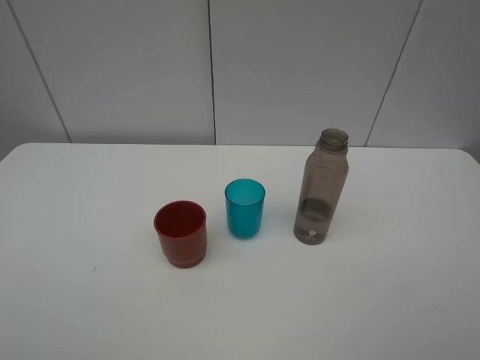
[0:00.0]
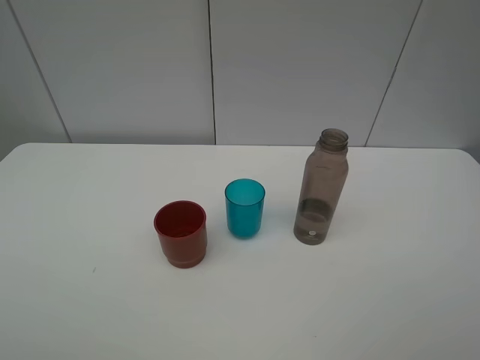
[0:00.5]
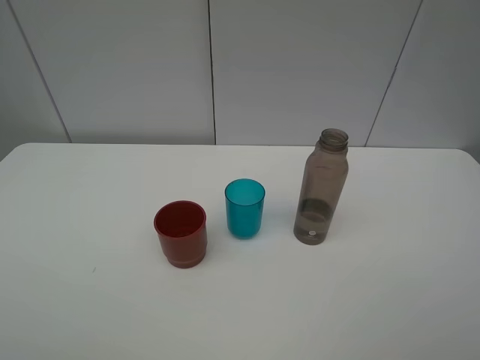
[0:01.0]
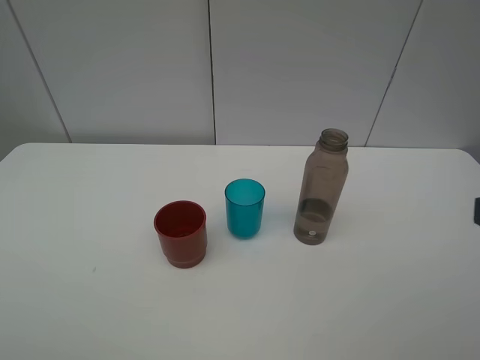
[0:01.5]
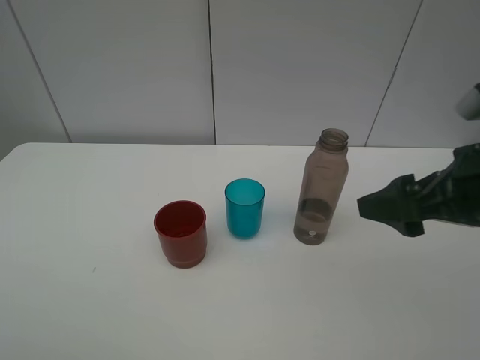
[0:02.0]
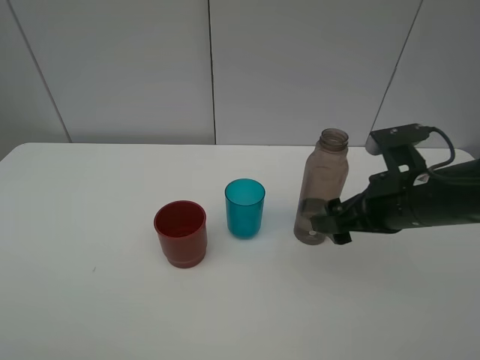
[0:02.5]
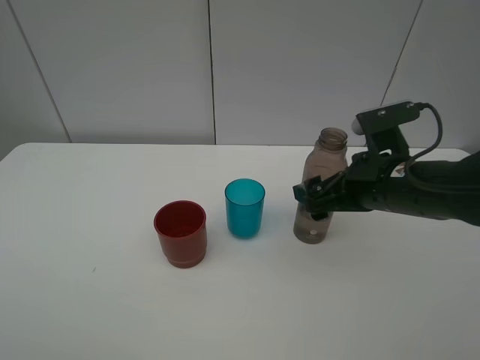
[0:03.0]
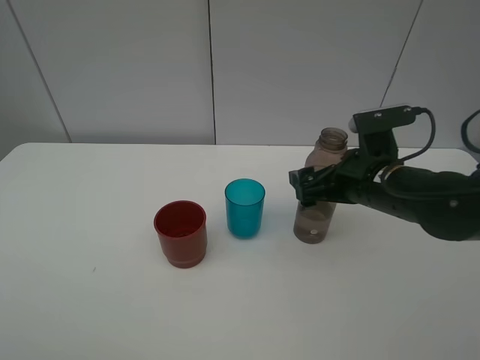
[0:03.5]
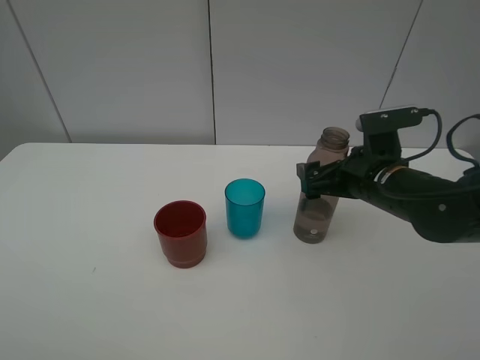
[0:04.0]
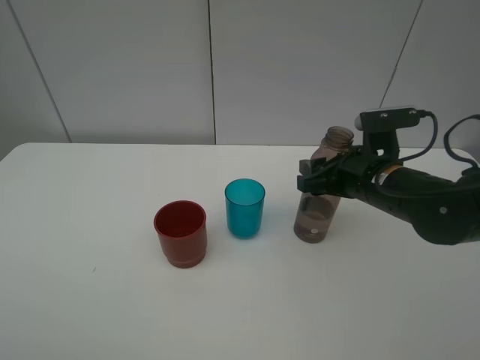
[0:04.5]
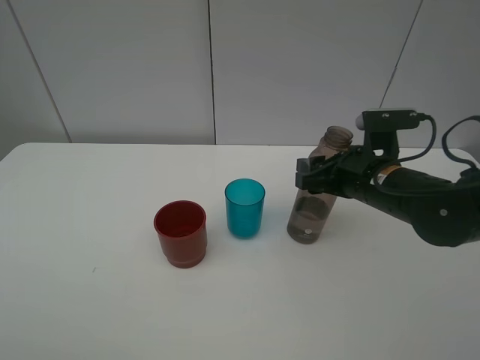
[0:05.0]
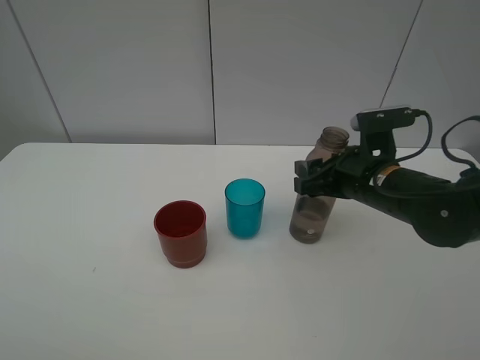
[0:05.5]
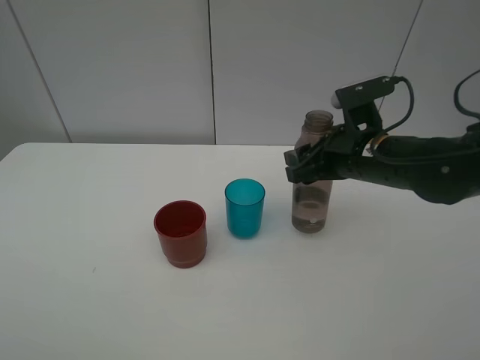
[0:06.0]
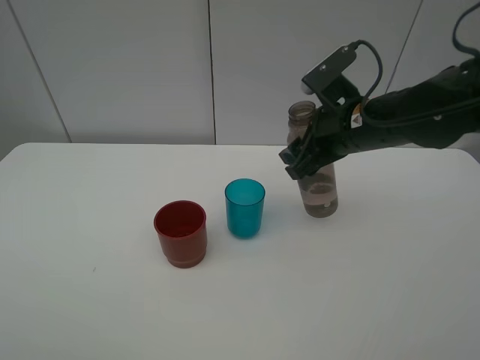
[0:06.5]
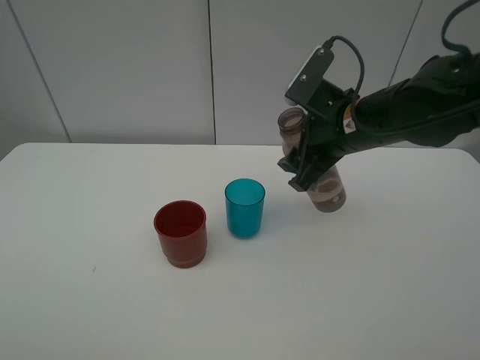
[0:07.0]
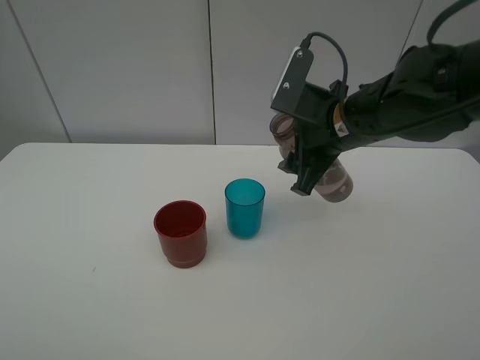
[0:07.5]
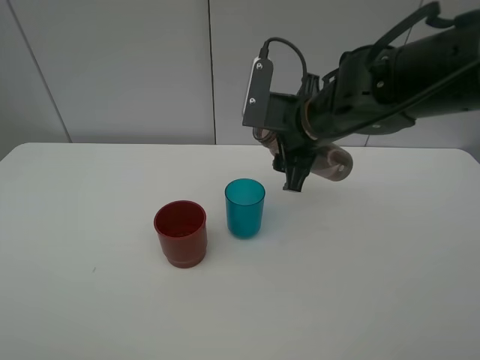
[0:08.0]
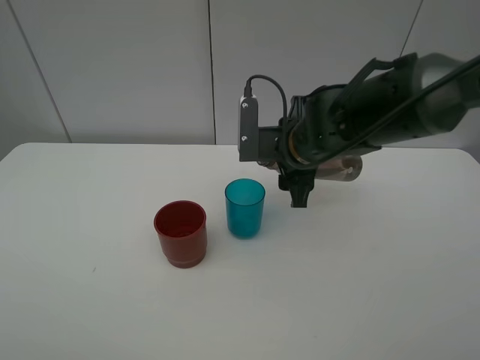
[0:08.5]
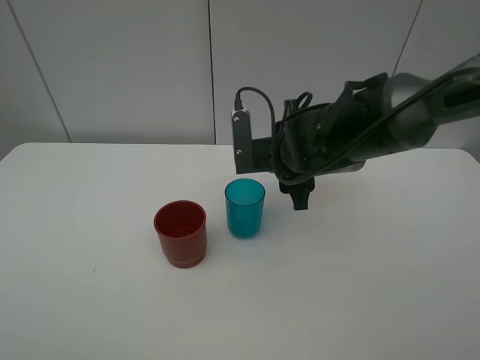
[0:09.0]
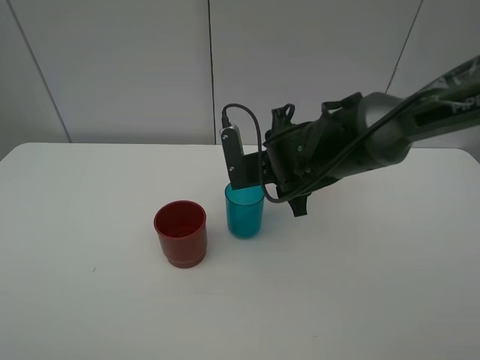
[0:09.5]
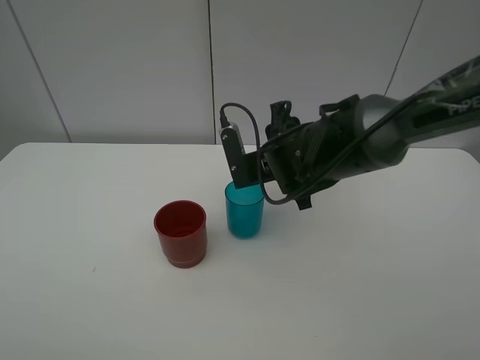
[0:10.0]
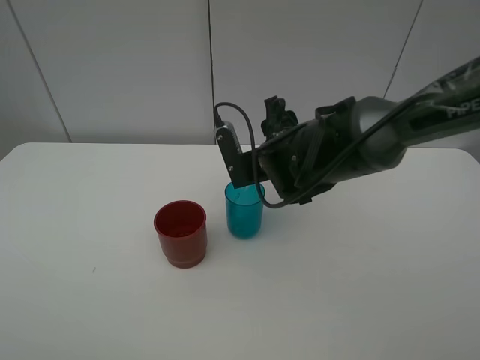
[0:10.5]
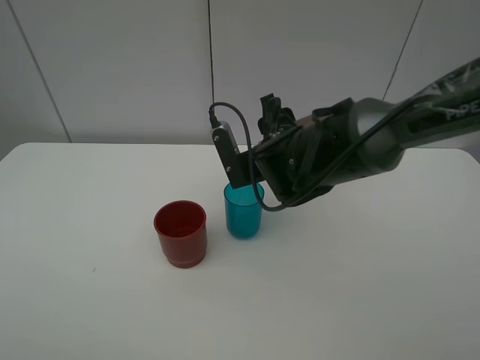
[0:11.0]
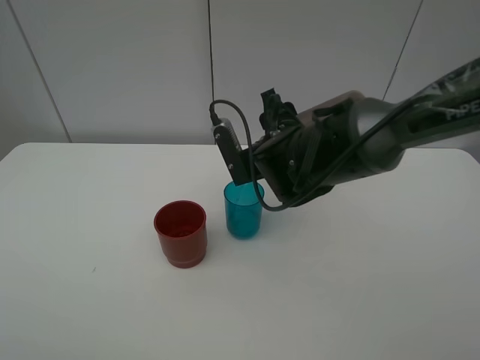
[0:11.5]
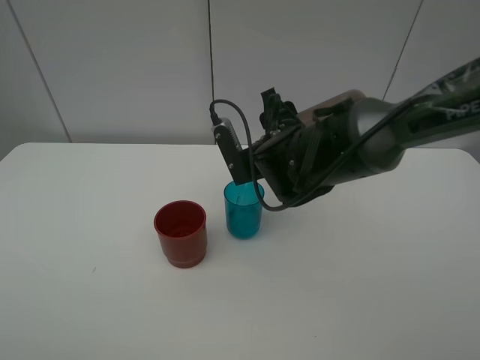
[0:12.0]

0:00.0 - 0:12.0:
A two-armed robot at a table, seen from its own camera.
Task of the whole recording: pick up the bottle and pour water into the cup, then pick up the cup containing water and pour it into another cup.
Step, 0:00.0 - 0:04.5: Grasp the brown bottle with the right gripper.
0:00.0 - 0:02.0: The right gripper moves forward and to the left, about 20 cm.
0:02.0 - 0:04.0: The right gripper goes approximately 15 cm forward, downward and to the left.
0:04.0 - 0:06.0: The right gripper closes up.
0:06.0 - 0:08.0: The right gripper shifts some 5 cm to the left.
0:08.0 - 0:10.0: The right gripper shifts about 5 cm downward.
0:10.0 - 0:12.0: The grippers make only small movements.

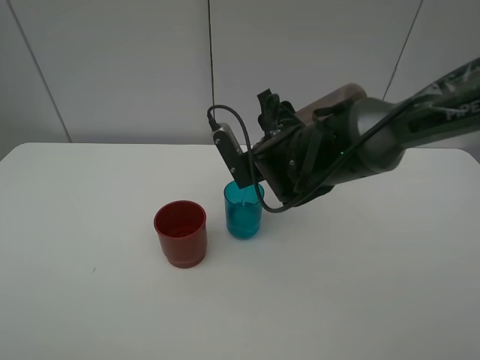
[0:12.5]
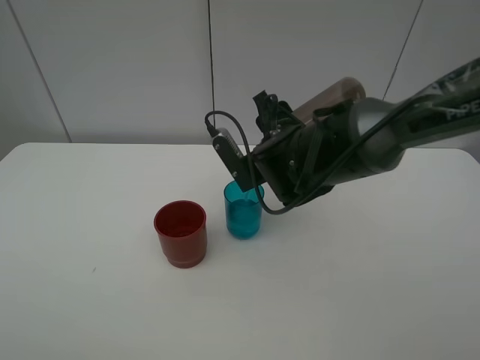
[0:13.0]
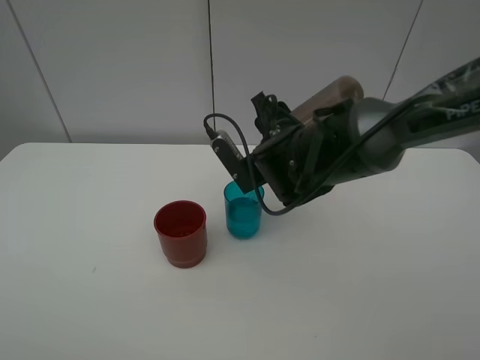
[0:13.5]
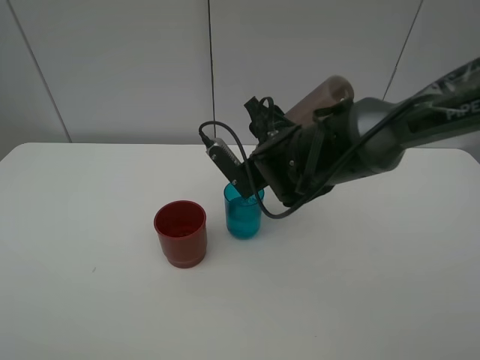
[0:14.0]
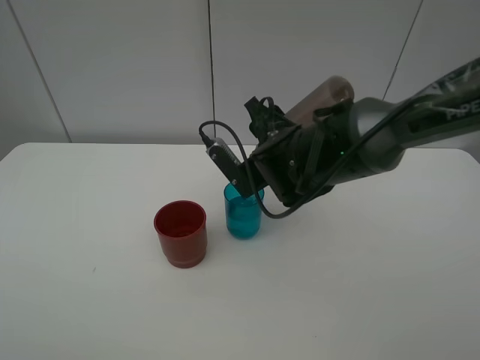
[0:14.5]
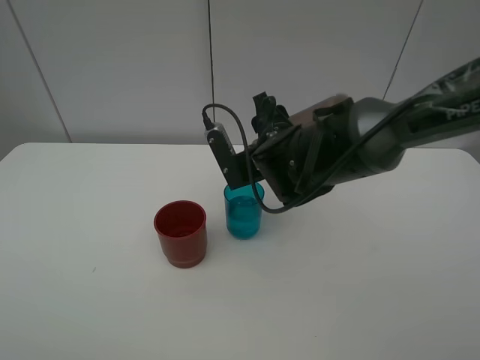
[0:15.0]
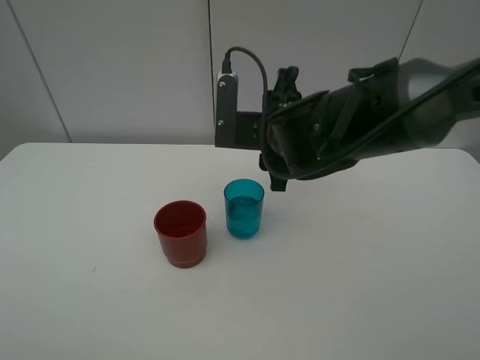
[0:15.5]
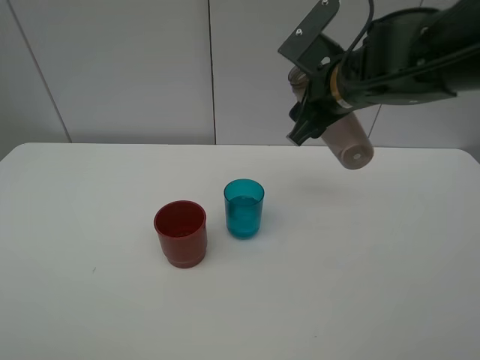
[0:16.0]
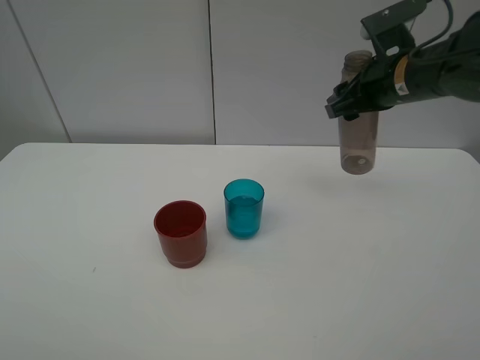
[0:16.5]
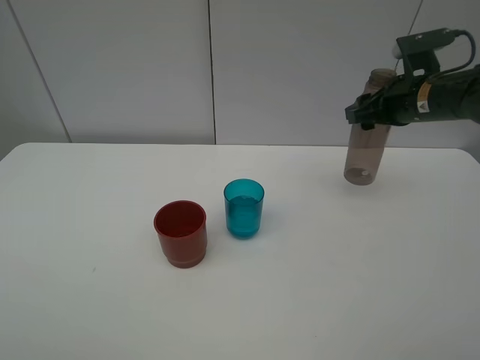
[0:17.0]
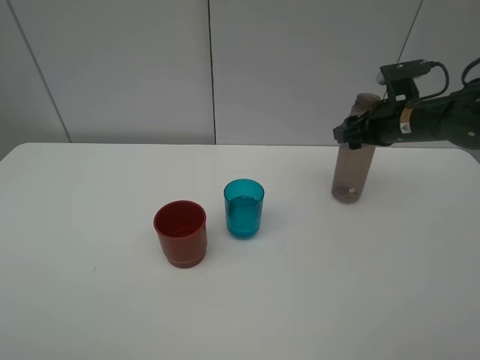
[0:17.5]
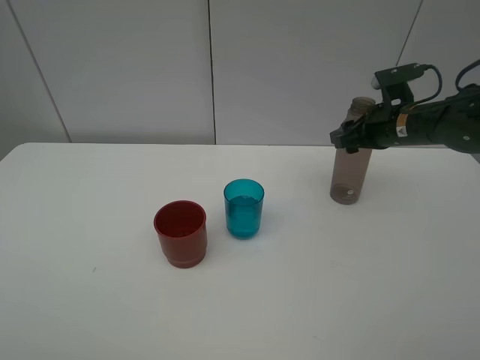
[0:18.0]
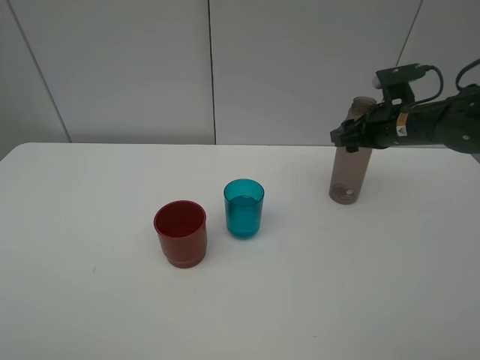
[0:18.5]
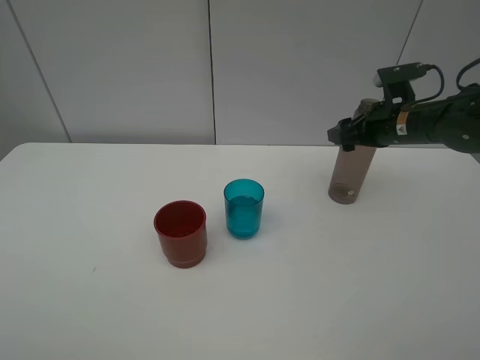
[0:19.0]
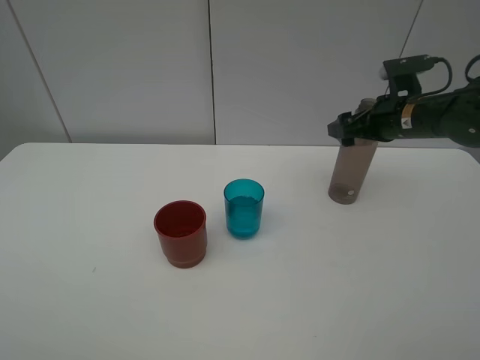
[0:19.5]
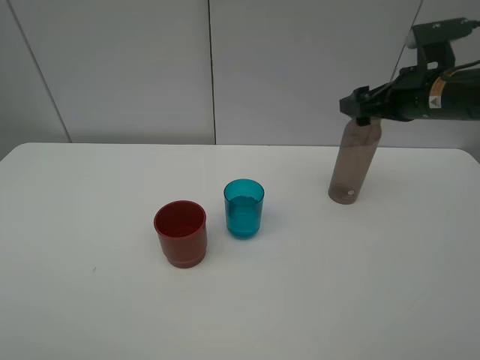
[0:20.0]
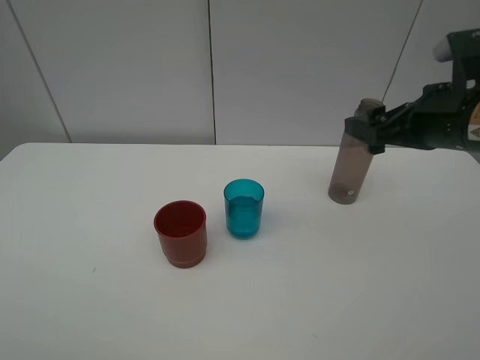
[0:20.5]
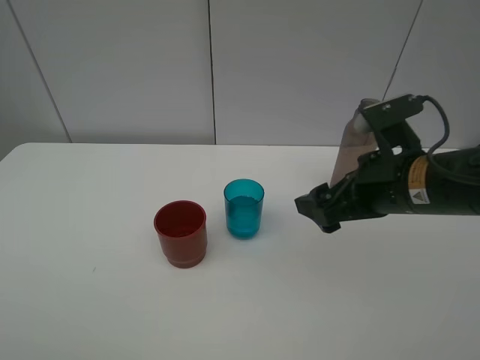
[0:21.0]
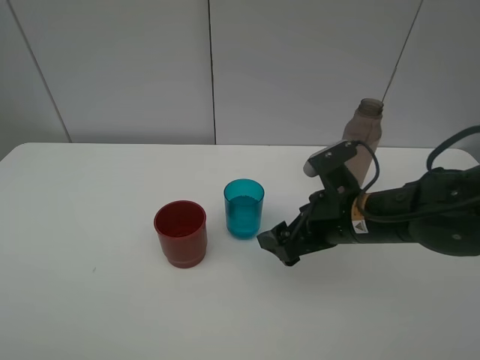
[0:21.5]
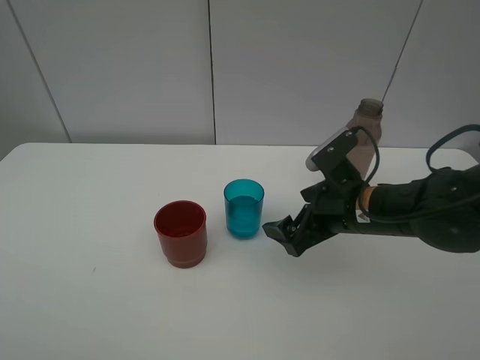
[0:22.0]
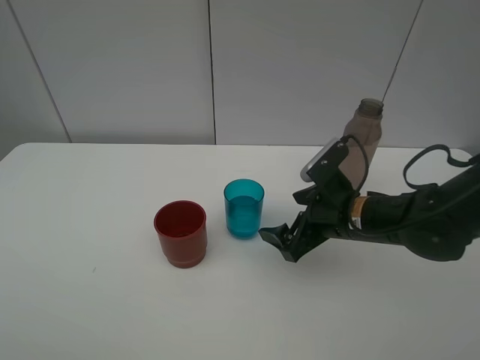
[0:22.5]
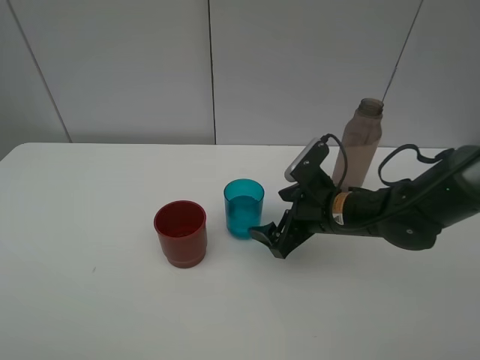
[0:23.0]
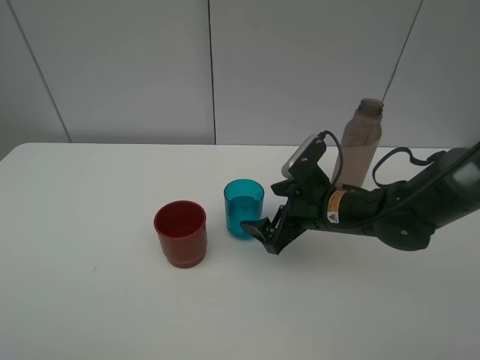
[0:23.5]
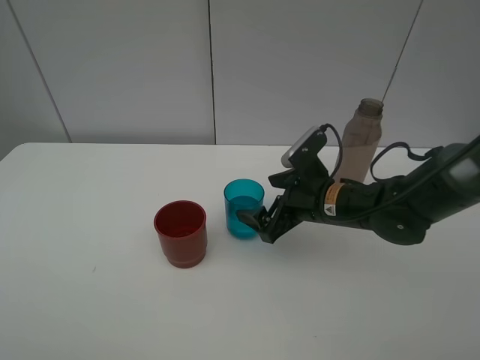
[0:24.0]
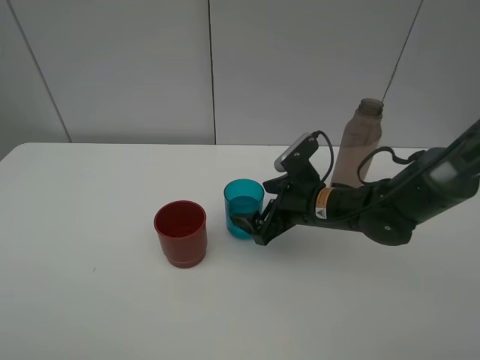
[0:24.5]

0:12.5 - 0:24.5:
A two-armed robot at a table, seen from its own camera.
Task of the whole recording: pick up the bottle and pour water into the cup, then pick up the cup containing water and pour it into another cup.
Step, 0:12.5 - 0:15.0: Pour water from brown bottle to blue cup with the right gripper.
Step, 0:15.5 - 0:19.0: Place the brown bottle with the right gripper.
0:12.5 - 0:14.5: There are only small adjustments of the grippers.
0:14.5 - 0:16.5: The right gripper travels to the right and upward by roughly 15 cm.
0:16.5 - 0:18.5: The right gripper is displaced downward by approximately 10 cm.
0:18.5 - 0:20.5: The right gripper shifts some 15 cm backward and upward, and opens its fingers.
0:20.5 - 0:22.5: The right gripper goes approximately 15 cm downward and to the left.
0:22.5 - 0:24.5: The right gripper ends up roughly 5 cm from where it was.

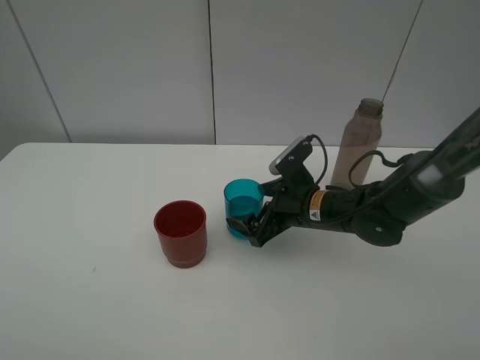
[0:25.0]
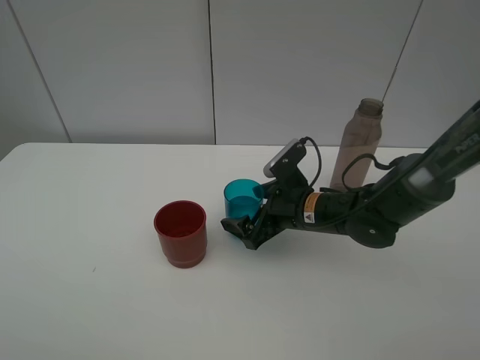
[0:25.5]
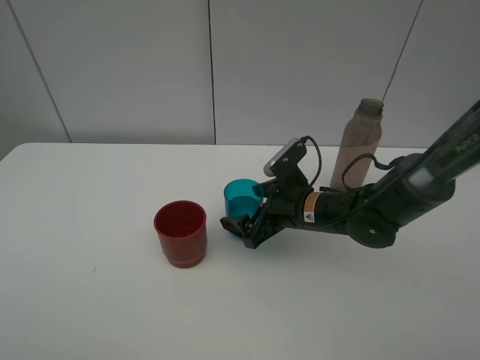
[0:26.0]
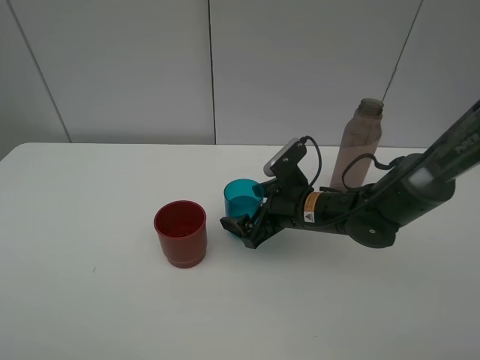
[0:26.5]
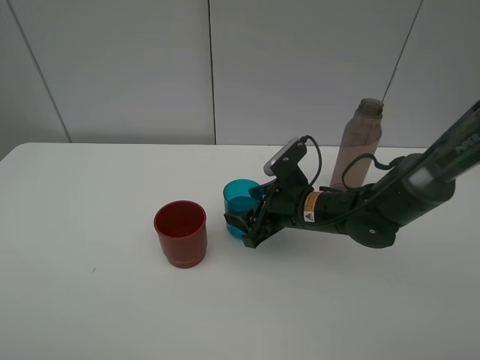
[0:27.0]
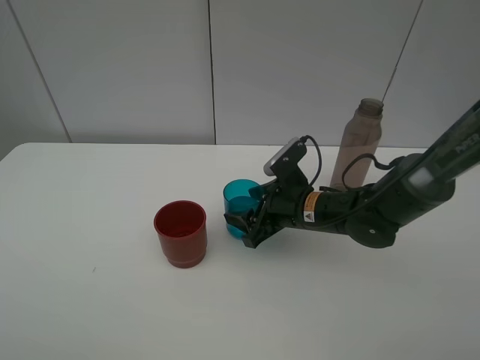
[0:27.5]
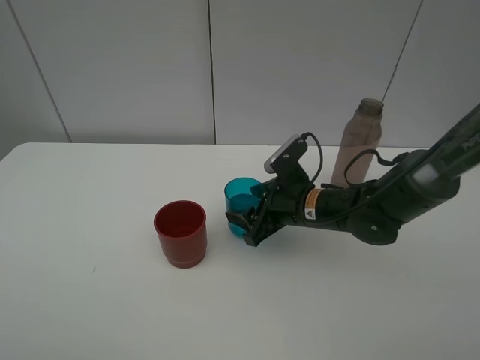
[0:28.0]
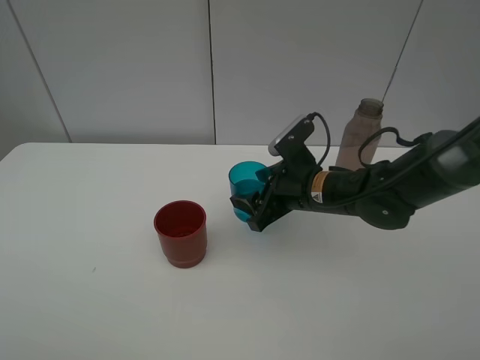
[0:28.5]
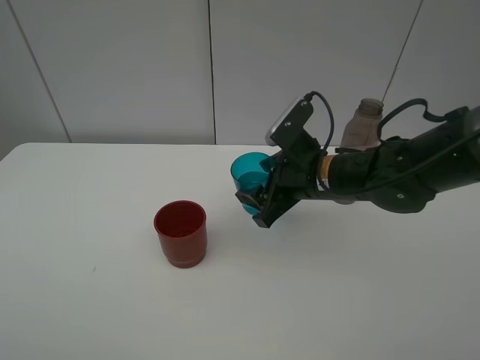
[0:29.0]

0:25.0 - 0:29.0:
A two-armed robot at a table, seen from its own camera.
Task of the whole recording: pick up the bottle and pour water into the cup, then pick up the cup containing water and pour it into another cup.
Step, 0:25.0 - 0:27.0: Grasp the blue cup with the right gripper.
0:25.0 - 0:27.0: The right gripper closes its fingers.
0:27.0 - 0:29.0: The right gripper heads upward, covering about 5 cm.
